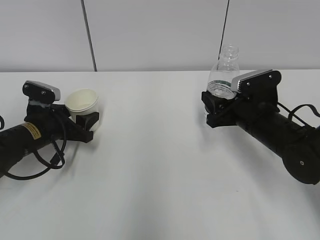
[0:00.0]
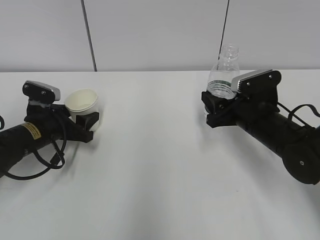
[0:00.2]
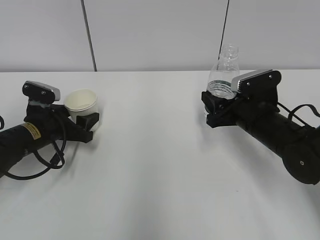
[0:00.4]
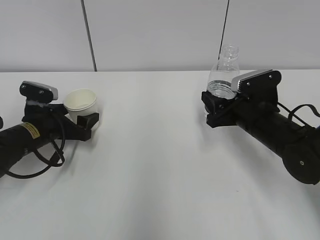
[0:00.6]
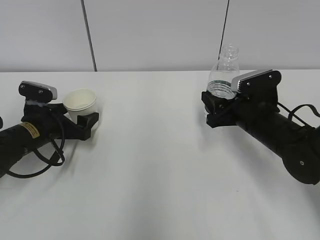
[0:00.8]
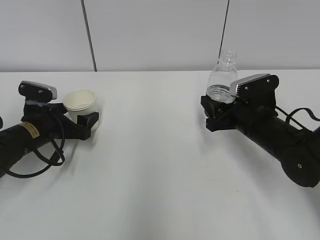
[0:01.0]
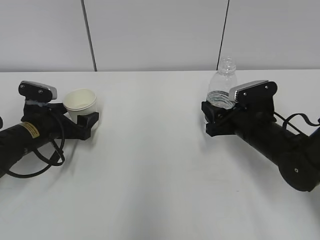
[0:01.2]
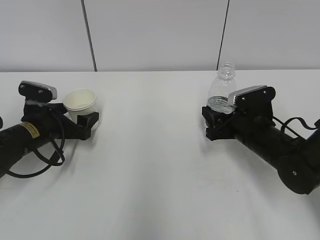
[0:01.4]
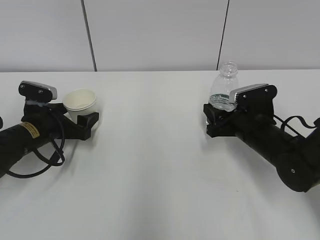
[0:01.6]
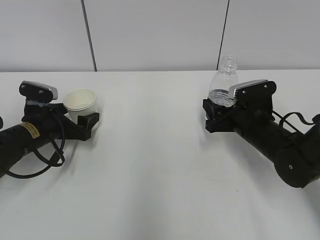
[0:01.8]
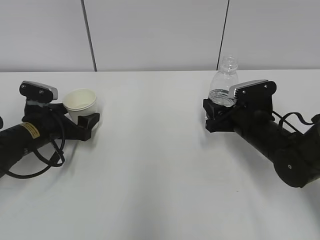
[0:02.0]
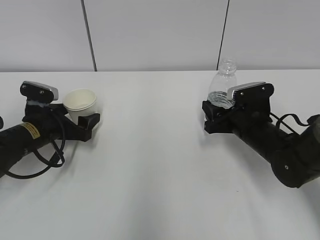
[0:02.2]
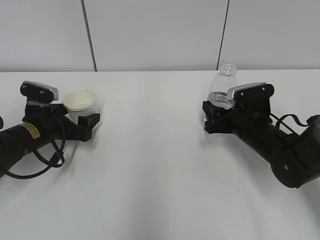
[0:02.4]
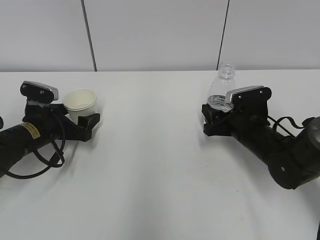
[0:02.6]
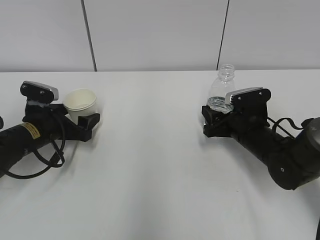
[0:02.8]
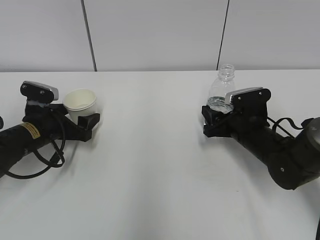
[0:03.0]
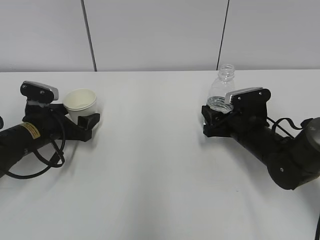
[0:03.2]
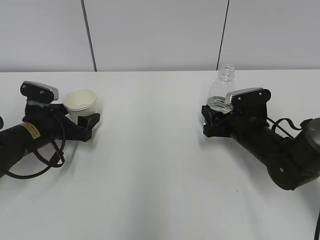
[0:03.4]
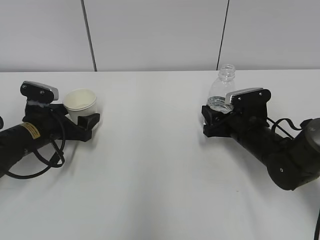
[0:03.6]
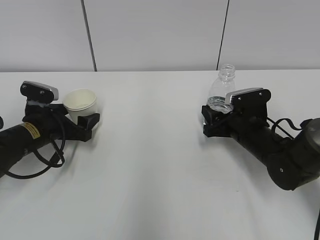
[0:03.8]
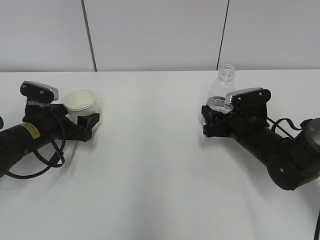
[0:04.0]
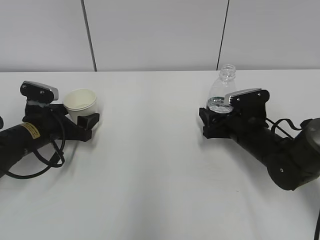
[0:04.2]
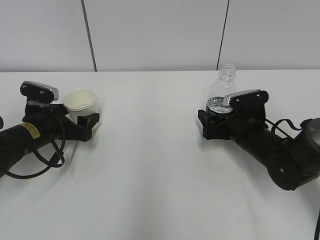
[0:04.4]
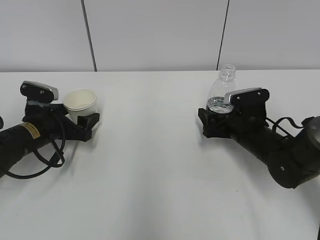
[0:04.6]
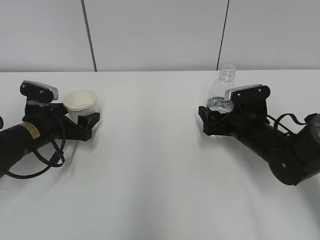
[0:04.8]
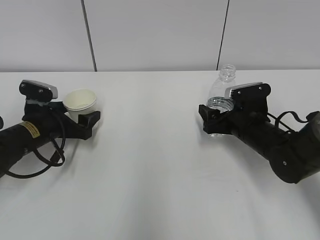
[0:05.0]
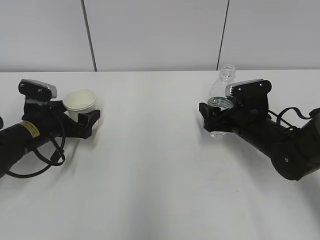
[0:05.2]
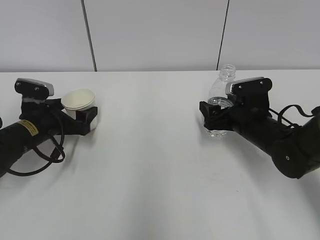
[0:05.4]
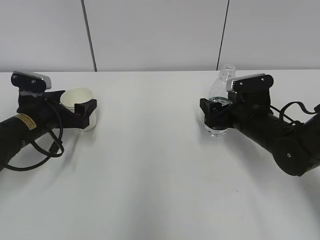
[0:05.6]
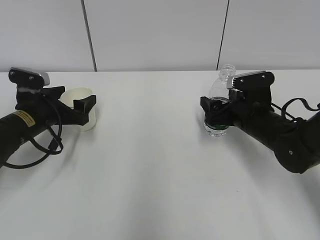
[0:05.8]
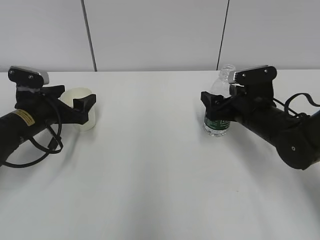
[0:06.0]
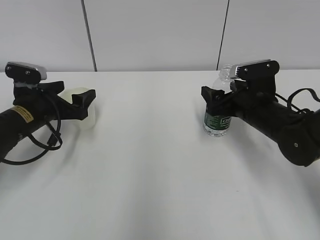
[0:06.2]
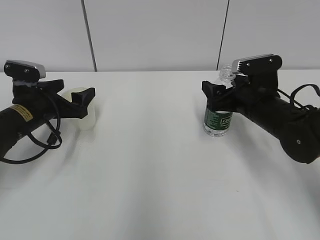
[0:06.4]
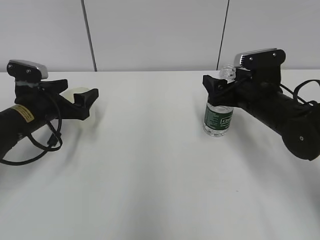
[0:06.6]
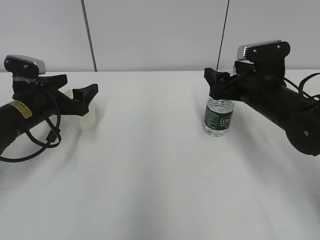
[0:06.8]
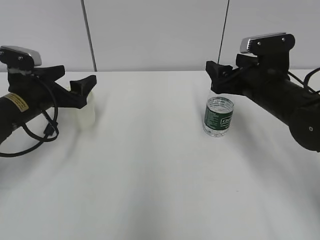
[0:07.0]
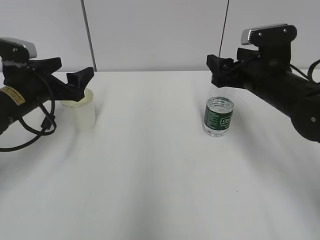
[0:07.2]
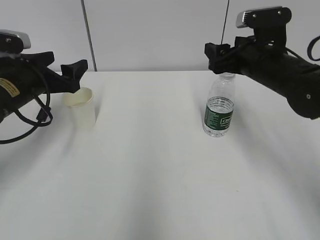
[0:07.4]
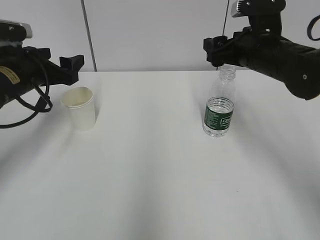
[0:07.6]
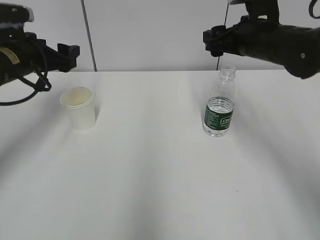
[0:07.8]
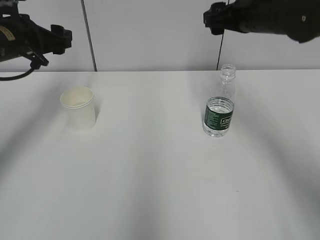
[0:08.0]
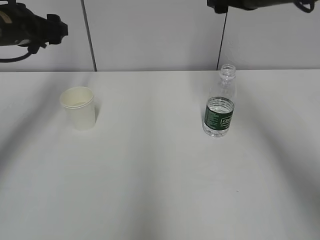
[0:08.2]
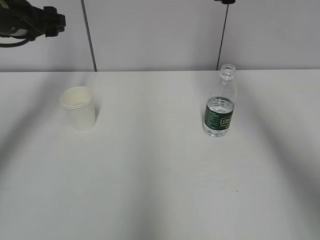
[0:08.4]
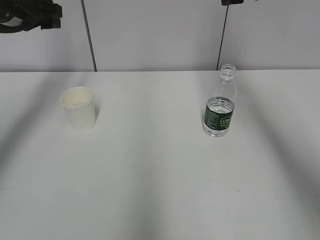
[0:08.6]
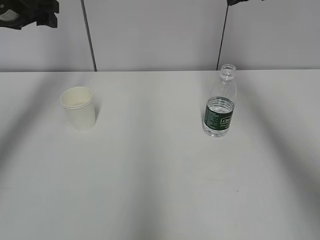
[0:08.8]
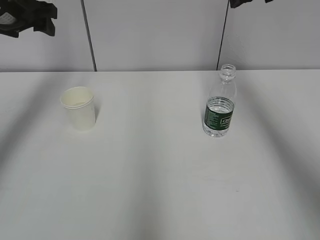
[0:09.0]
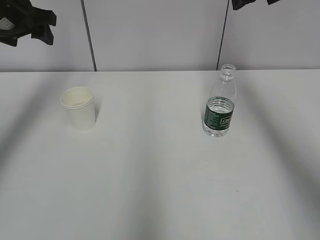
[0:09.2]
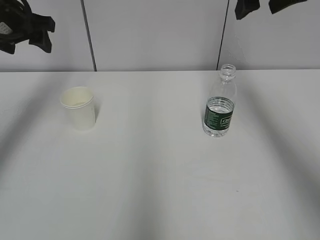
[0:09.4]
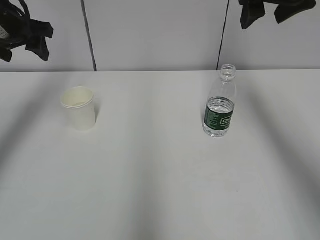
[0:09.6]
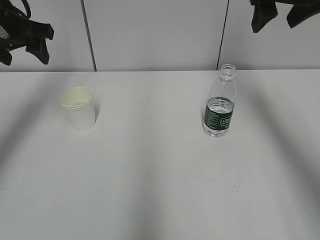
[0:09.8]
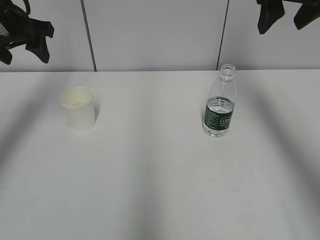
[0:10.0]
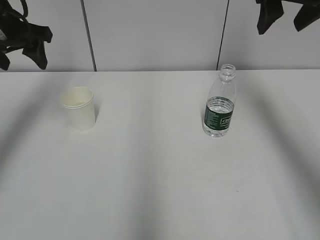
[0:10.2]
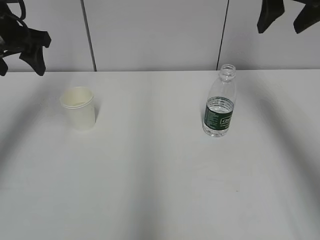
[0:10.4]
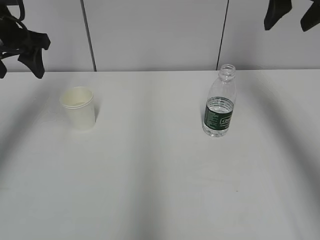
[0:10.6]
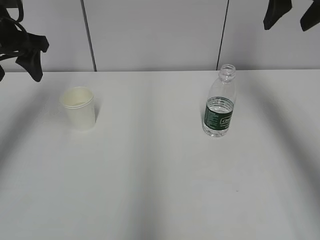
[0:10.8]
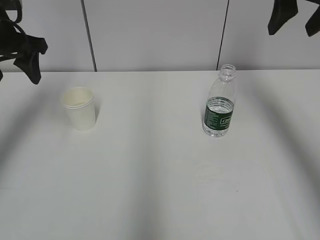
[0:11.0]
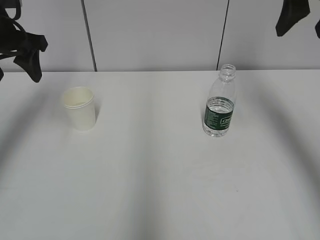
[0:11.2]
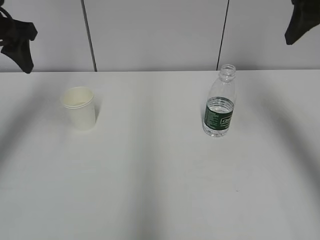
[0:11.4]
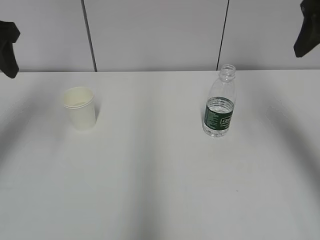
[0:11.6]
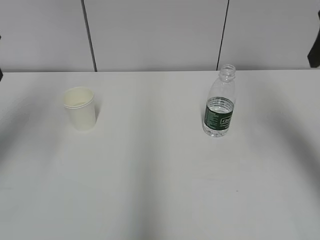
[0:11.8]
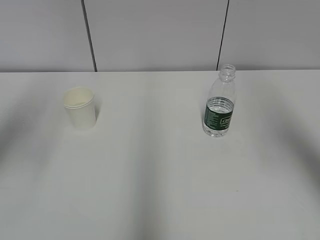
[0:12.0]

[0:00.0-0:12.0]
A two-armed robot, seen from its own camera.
Step, 0:00.0 to 0:01.0: Place the paper cup with the left hand.
0:00.0 to 0:01.6: The left gripper opens.
0:01.6 to 0:03.0: The grippers move only a little.
0:03.0 to 0:04.4: The right gripper opens.
0:04.4 to 0:06.0: There are only small adjustments of the grippers.
0:06.0 to 0:07.6: Both grippers travel together upward, roughly 10 cm.
0:07.6 to 0:09.0: The two grippers go about 15 cm upward.
0:10.4 to 0:12.0: Both grippers travel together backward, about 15 cm.

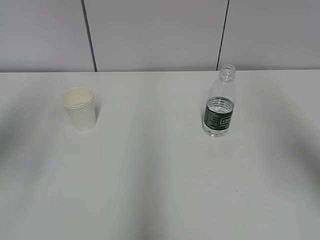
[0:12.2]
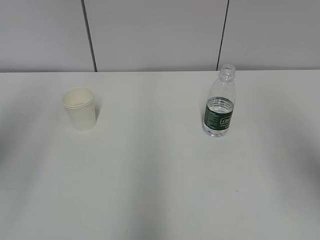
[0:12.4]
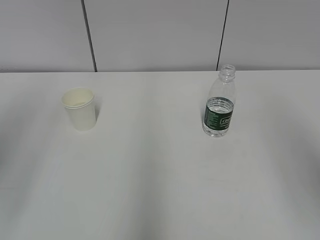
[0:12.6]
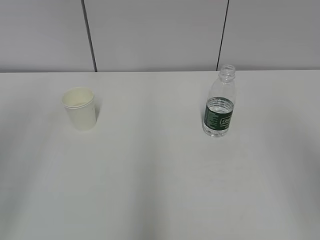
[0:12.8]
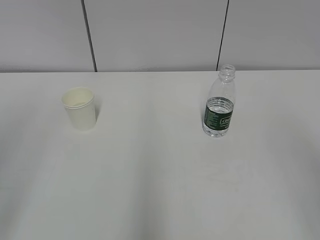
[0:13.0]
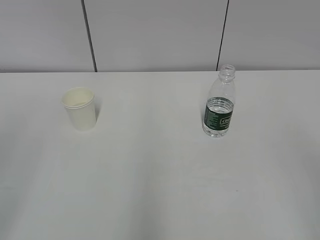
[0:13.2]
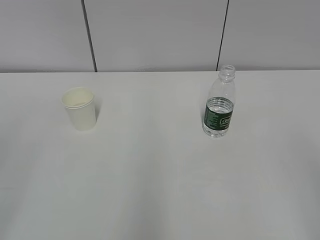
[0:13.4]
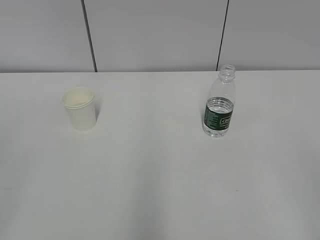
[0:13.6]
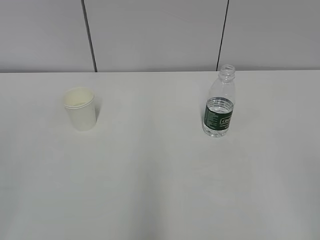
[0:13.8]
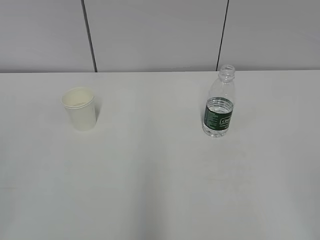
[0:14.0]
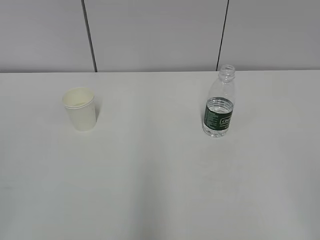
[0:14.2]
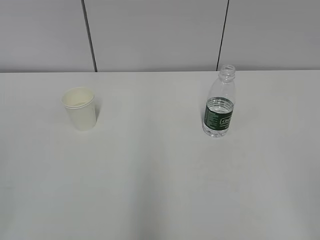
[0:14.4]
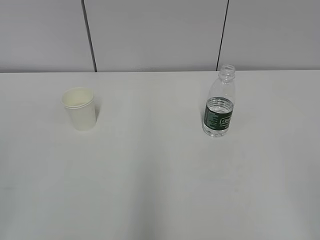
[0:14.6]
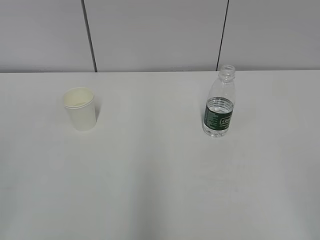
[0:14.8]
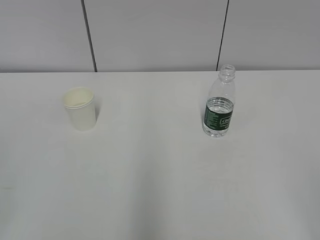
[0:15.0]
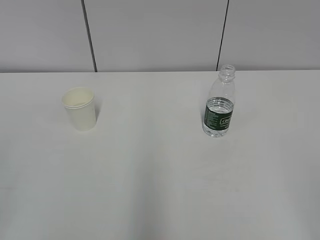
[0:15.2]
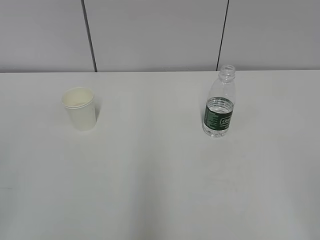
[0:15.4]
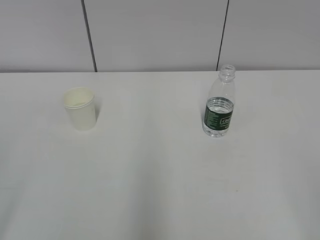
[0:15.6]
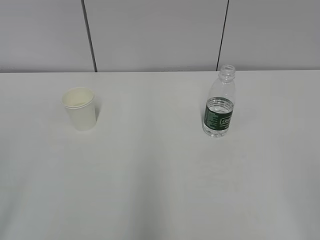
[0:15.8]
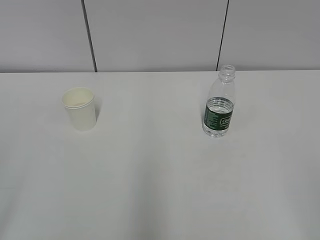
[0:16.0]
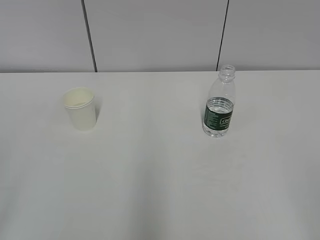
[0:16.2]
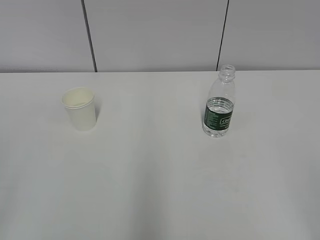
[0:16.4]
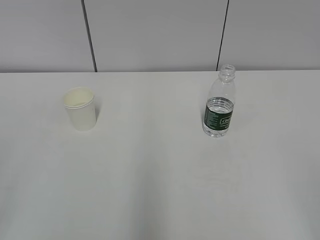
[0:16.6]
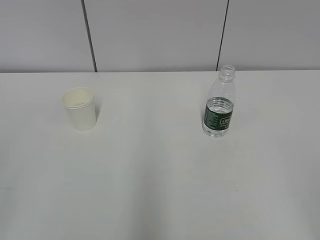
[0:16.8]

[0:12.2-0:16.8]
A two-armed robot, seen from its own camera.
0:12.2 to 0:13.8: The left gripper goes approximately 25 cm backward. The right gripper travels backward and downward by about 20 cm.

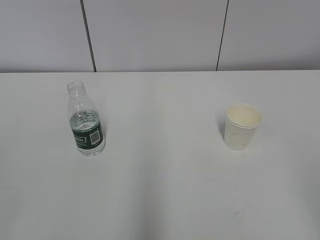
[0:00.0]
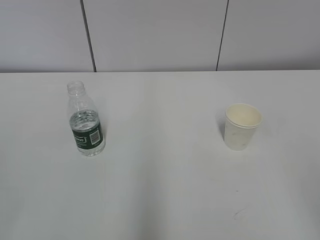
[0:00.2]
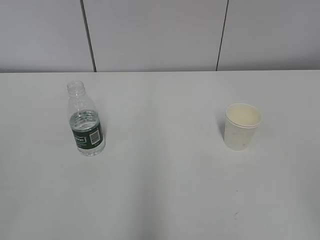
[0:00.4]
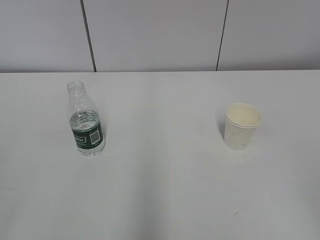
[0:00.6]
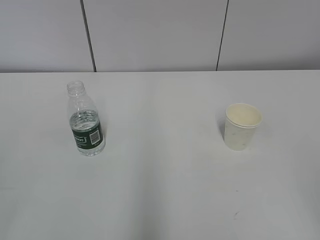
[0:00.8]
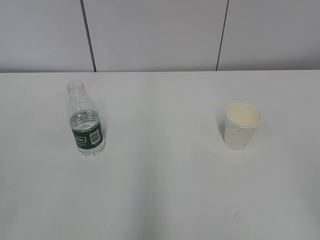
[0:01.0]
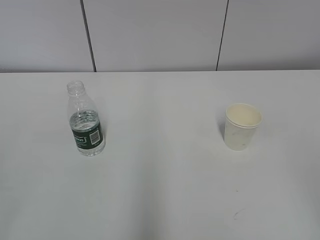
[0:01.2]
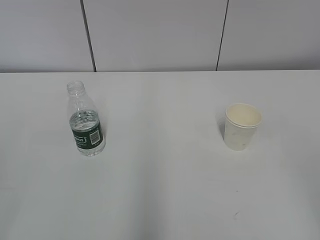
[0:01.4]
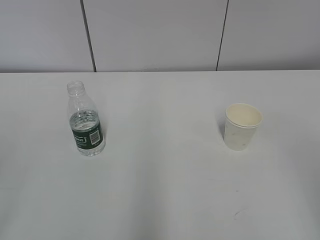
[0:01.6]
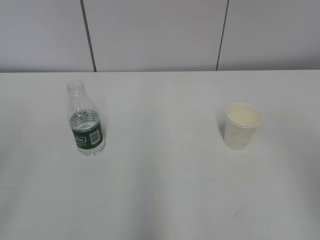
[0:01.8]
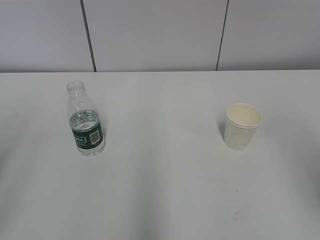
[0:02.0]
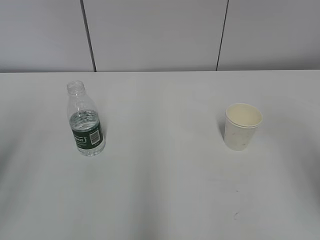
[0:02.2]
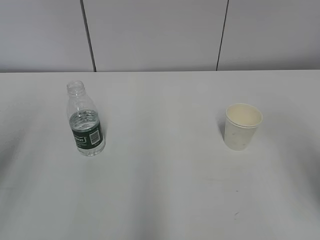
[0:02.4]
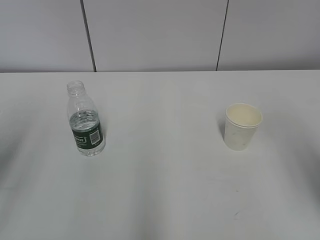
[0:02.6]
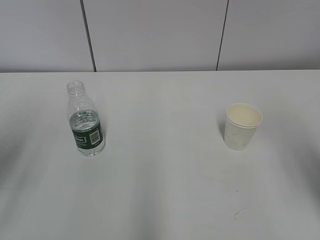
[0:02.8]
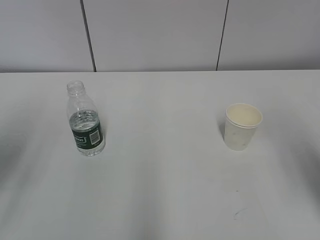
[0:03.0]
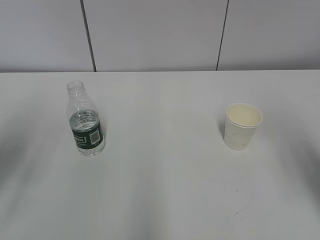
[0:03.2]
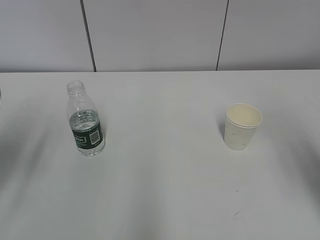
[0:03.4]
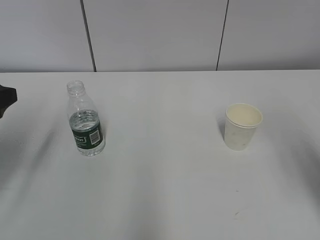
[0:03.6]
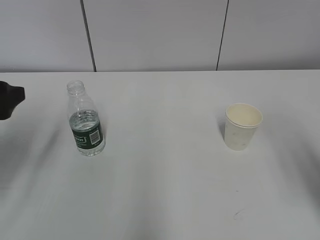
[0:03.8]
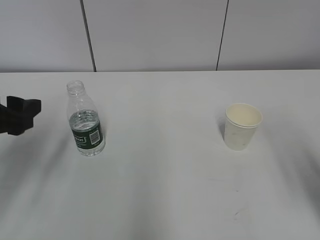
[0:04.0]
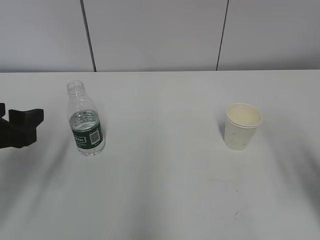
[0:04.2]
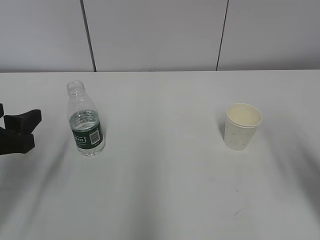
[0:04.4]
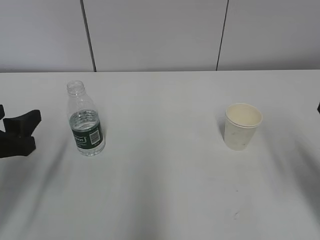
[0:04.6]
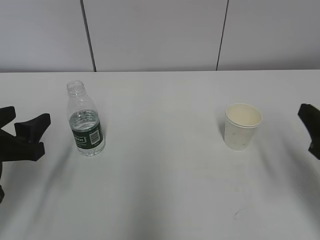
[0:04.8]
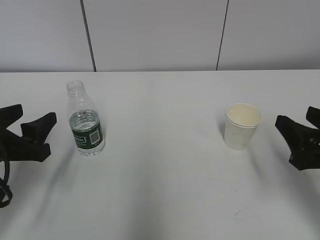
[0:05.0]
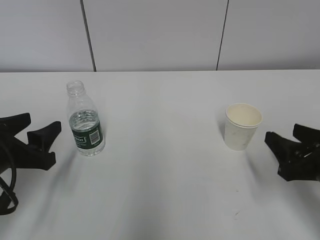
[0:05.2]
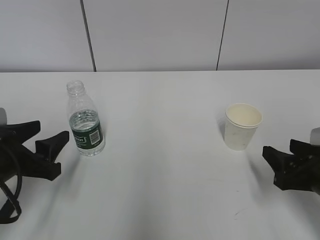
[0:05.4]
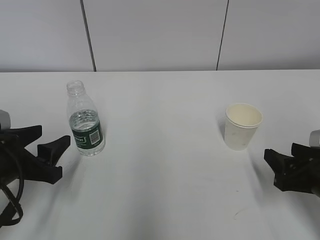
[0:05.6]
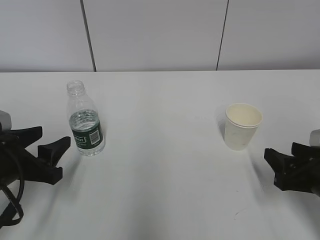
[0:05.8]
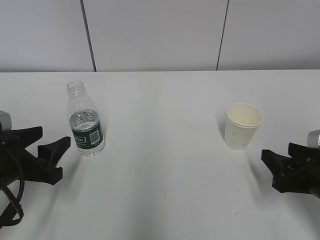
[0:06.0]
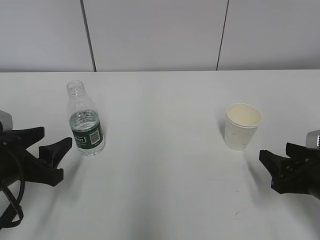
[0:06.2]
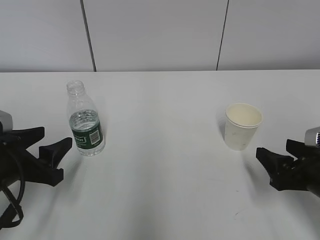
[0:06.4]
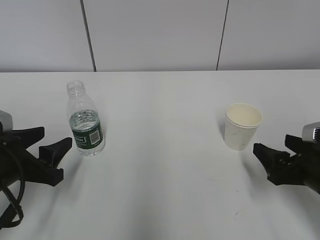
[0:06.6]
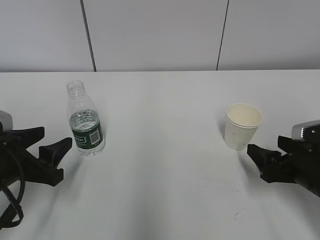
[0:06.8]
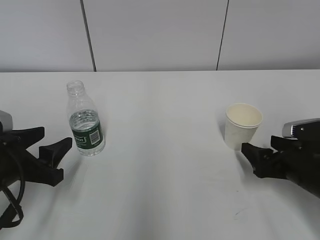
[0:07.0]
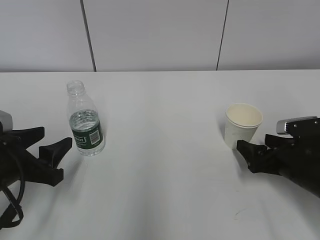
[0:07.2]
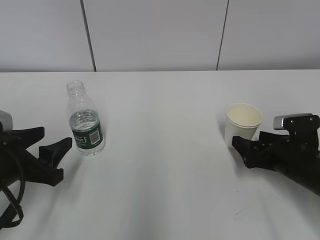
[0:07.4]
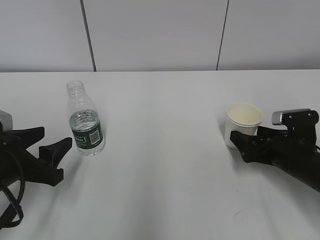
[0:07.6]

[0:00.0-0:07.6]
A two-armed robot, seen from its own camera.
0:01.6 to 0:03.0: Both grippers move forward, some 15 cm.
0:03.0 to 0:04.6: The left gripper shifts about 10 cm downward, and opens.
0:04.6 to 0:06.0: The right gripper heads downward, covering about 10 cm. Meanwhile the left gripper is displaced downward by some 5 cm.
0:06.0 to 0:07.6: The right gripper is displaced forward by some 10 cm, and opens.
